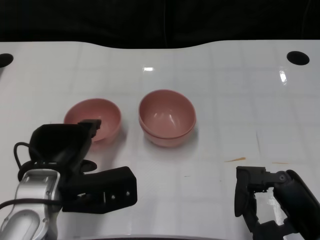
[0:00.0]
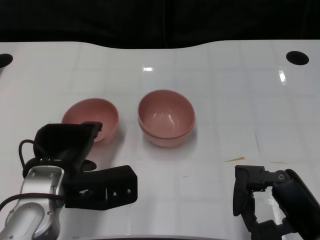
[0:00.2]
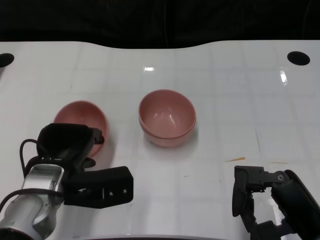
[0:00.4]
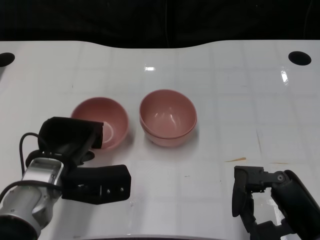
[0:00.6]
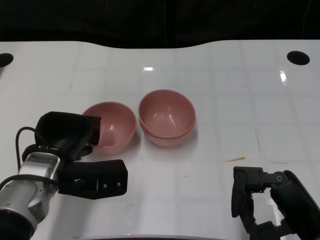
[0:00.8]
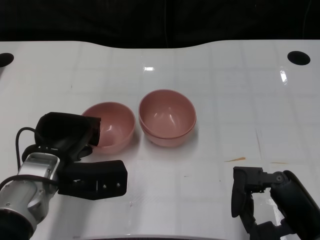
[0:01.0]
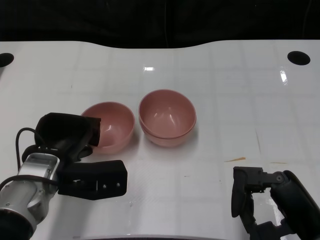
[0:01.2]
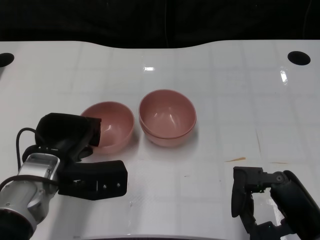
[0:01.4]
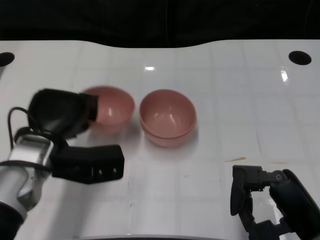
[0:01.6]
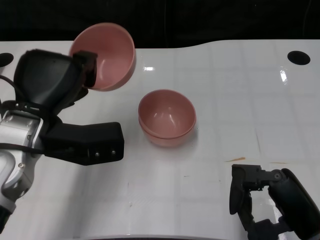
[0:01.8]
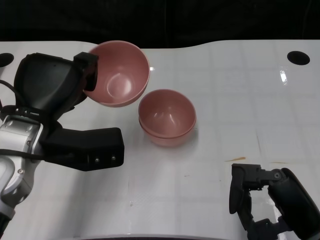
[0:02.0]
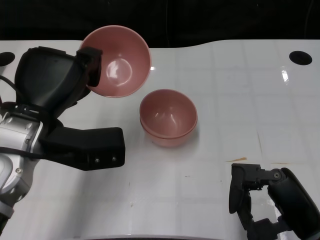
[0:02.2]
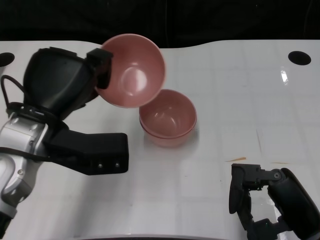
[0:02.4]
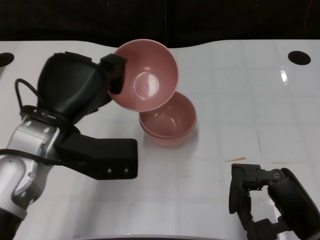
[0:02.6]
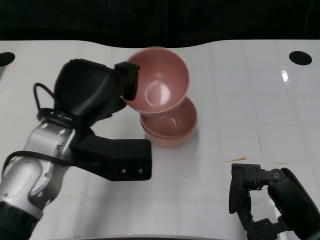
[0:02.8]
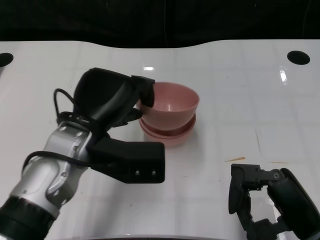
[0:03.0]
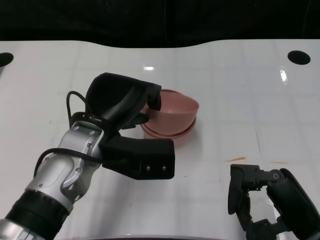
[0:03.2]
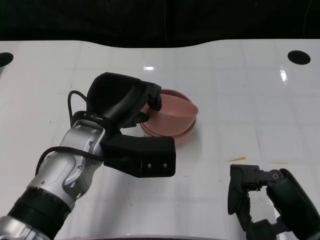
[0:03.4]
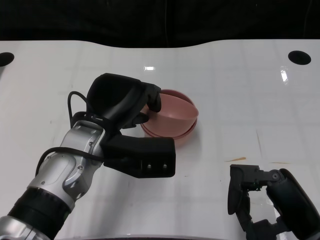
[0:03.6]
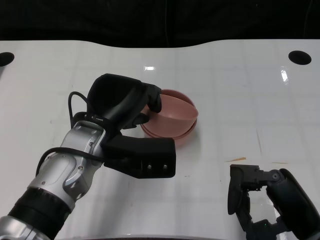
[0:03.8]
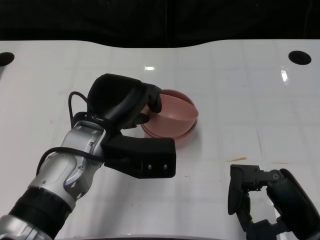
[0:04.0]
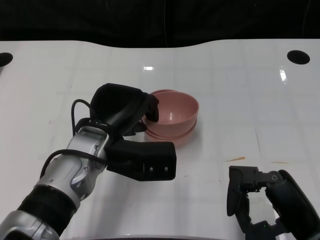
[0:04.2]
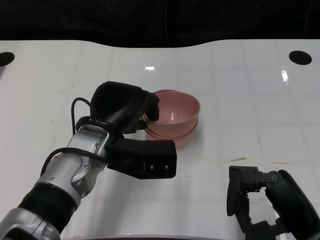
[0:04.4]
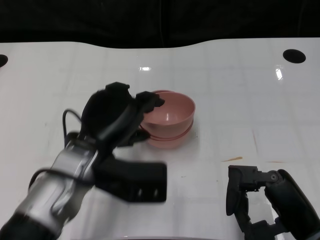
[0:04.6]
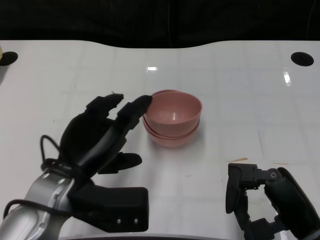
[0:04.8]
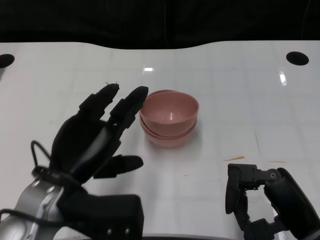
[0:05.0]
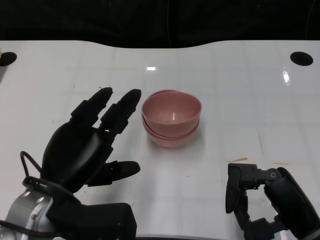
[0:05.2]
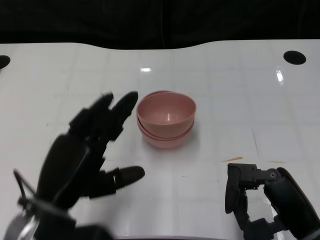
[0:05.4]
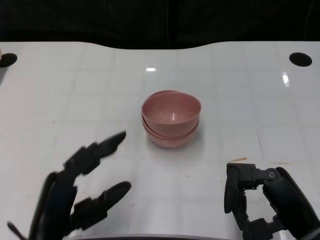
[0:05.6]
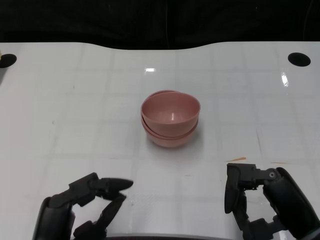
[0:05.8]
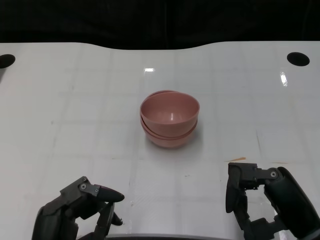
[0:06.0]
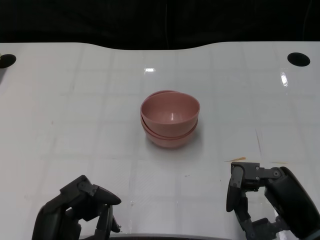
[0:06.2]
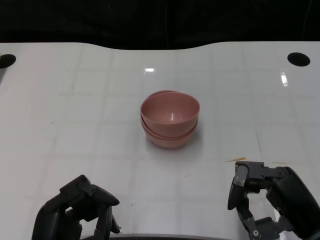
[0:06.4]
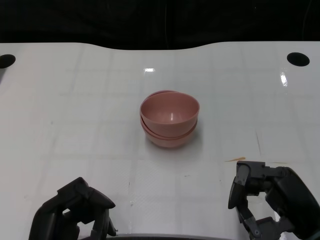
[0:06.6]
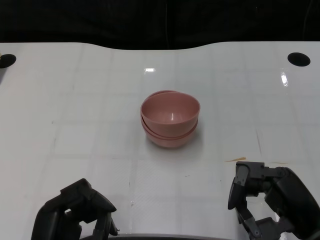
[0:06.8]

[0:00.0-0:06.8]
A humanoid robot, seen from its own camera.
Task of the whole recording: Pick up the bowl on one side of the table and place it on top of the middle bowl, then pick up the bowl on the other side of the table and place it on top of the middle bowls.
Step, 0:01.8 to 0:04.8: Place the bowl on the left onto the bowl in the middle with left gripper.
0:00.0 to 0:01.4: The hands make only small movements.
0:01.4 to 0:02.8: The left hand goes some 10 cm upward.
0:04.0 to 0:05.4: The left hand goes roughly 10 cm backward and to the left.
0:05.4 to 0:06.8: The left hand moves backward and downward, some 10 cm.

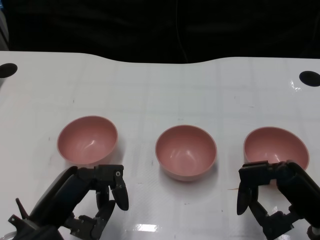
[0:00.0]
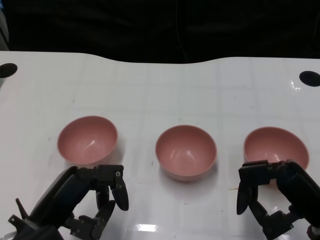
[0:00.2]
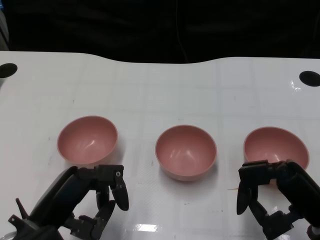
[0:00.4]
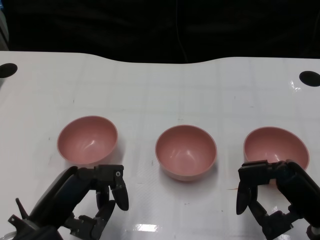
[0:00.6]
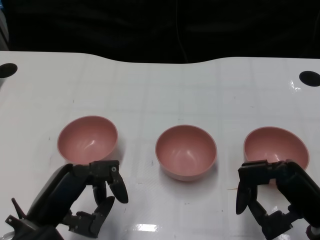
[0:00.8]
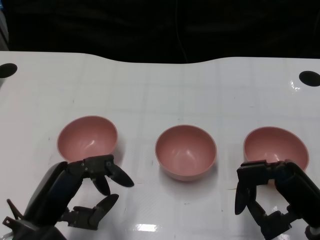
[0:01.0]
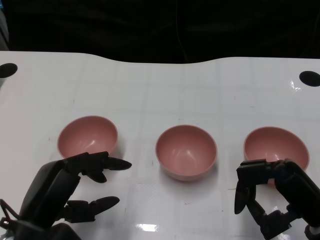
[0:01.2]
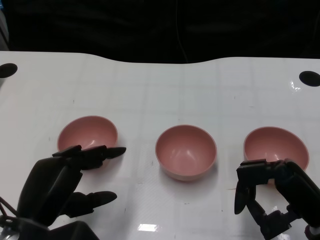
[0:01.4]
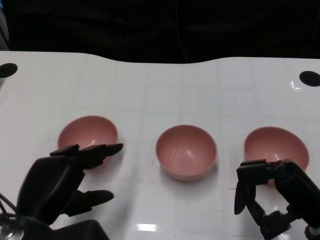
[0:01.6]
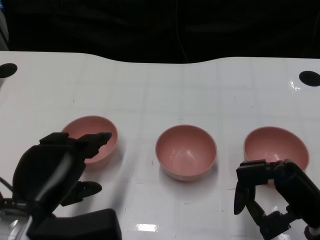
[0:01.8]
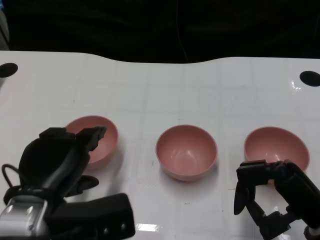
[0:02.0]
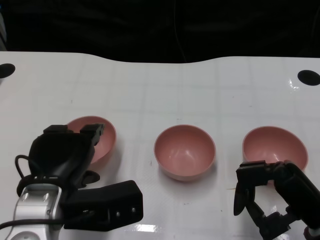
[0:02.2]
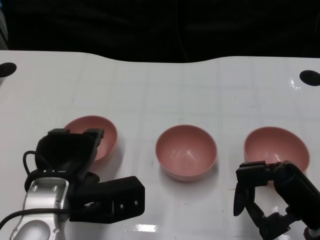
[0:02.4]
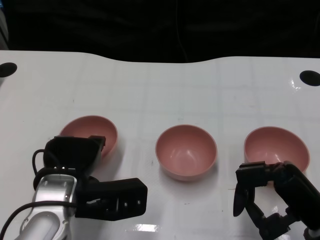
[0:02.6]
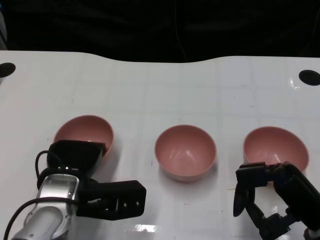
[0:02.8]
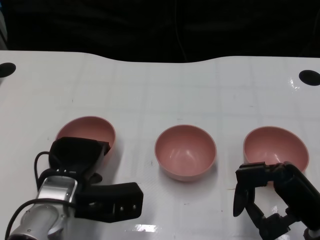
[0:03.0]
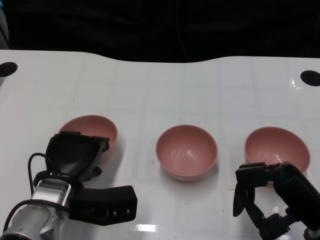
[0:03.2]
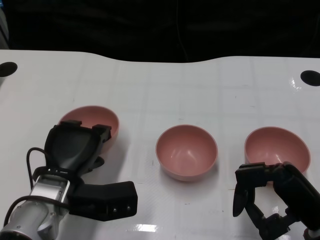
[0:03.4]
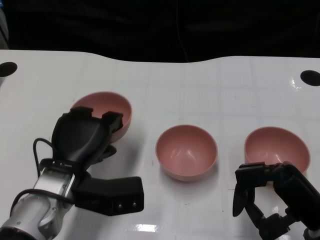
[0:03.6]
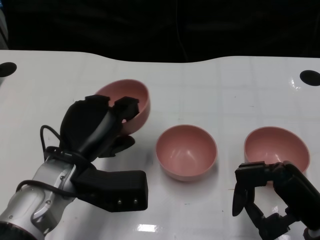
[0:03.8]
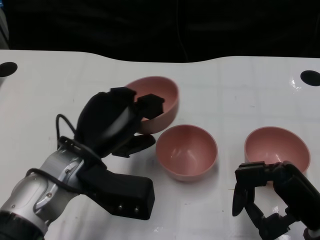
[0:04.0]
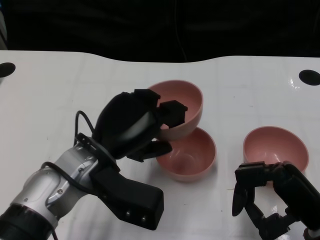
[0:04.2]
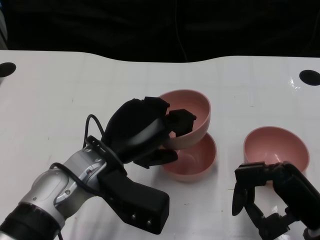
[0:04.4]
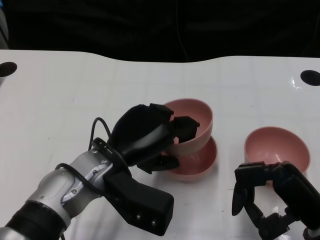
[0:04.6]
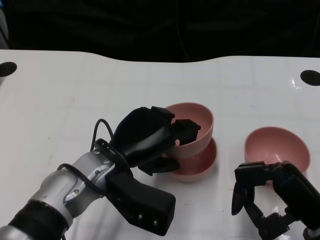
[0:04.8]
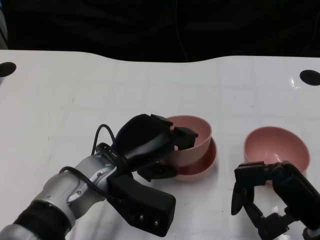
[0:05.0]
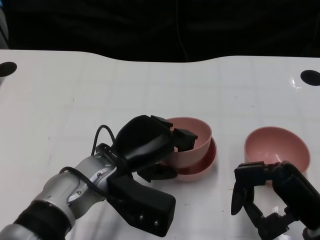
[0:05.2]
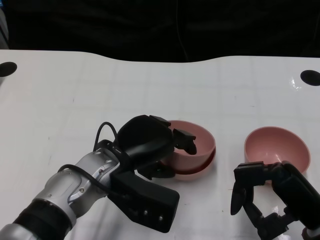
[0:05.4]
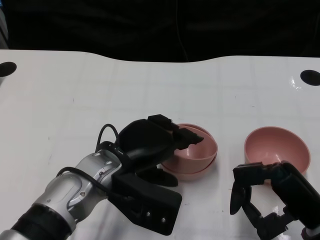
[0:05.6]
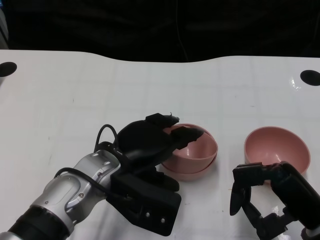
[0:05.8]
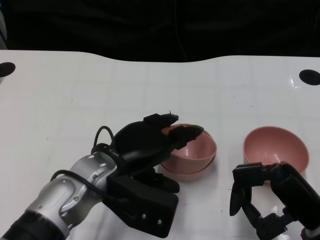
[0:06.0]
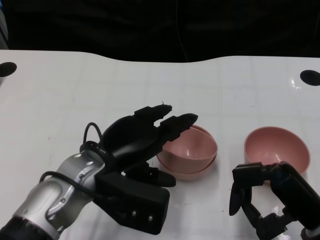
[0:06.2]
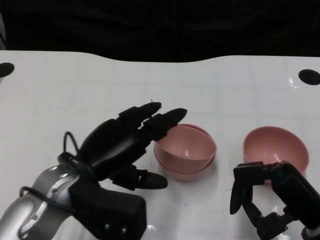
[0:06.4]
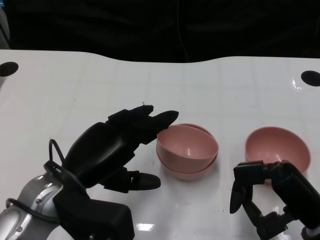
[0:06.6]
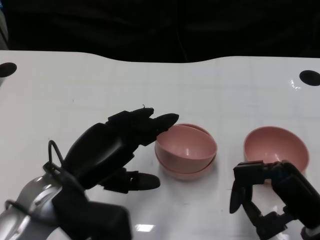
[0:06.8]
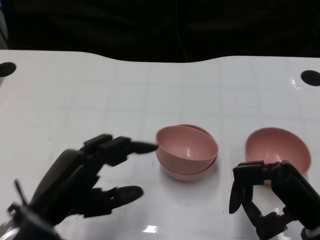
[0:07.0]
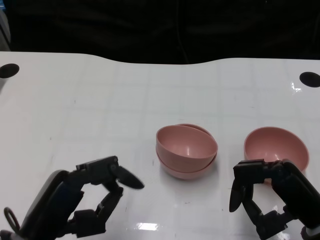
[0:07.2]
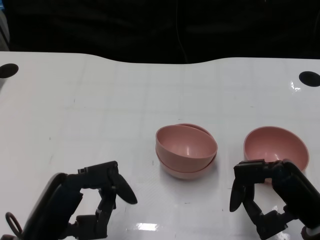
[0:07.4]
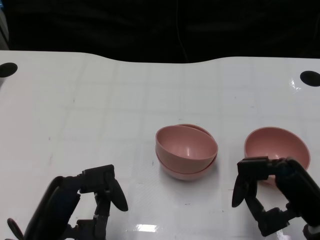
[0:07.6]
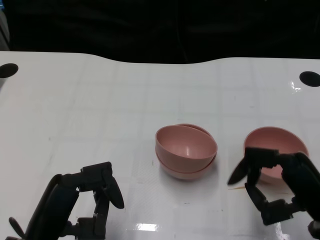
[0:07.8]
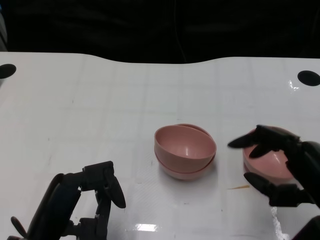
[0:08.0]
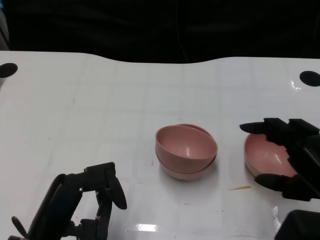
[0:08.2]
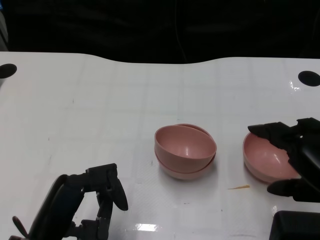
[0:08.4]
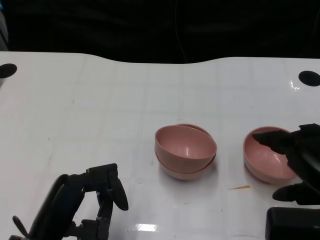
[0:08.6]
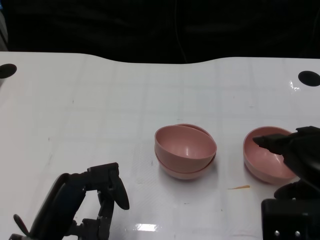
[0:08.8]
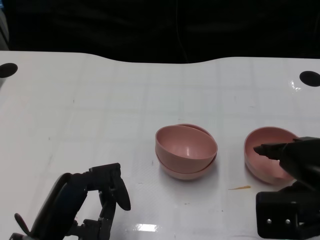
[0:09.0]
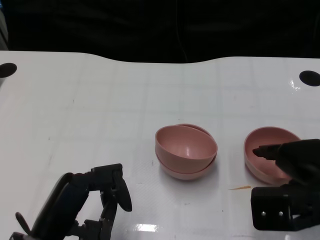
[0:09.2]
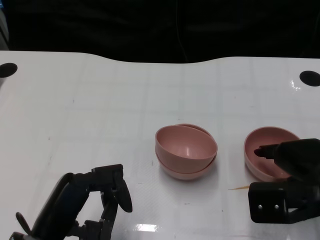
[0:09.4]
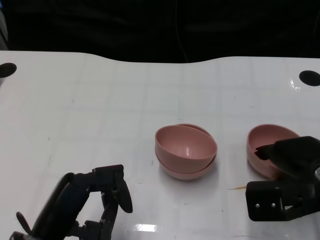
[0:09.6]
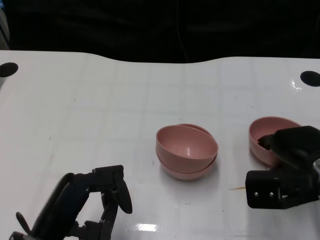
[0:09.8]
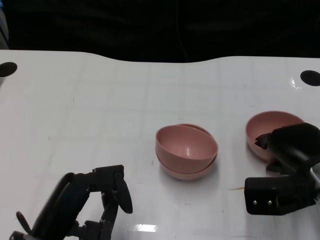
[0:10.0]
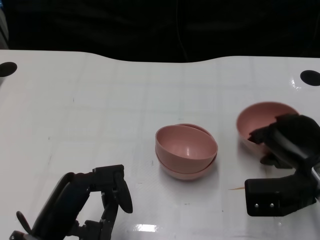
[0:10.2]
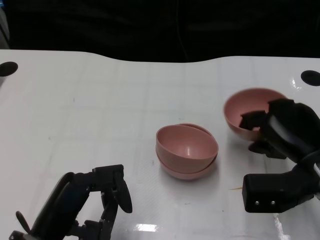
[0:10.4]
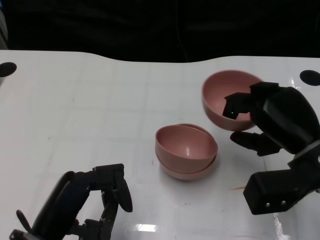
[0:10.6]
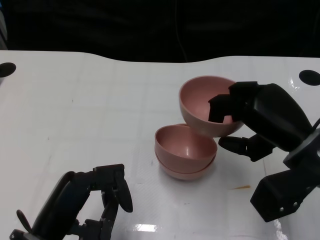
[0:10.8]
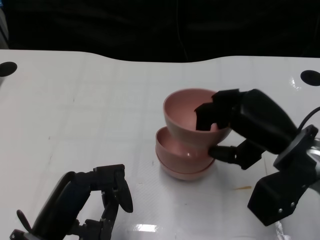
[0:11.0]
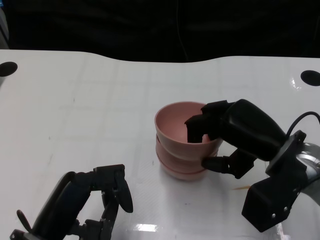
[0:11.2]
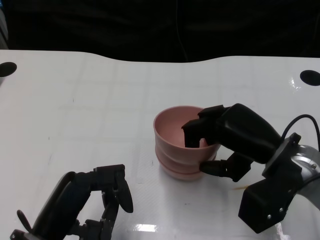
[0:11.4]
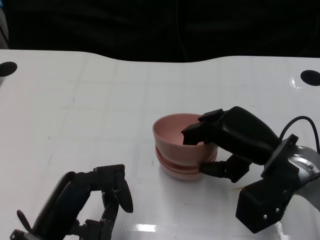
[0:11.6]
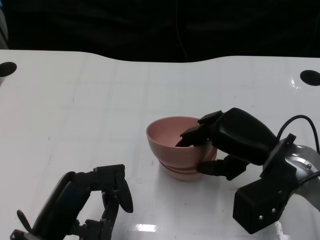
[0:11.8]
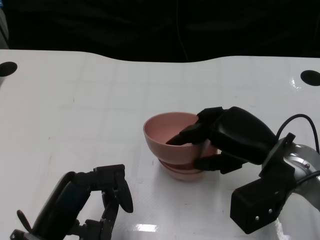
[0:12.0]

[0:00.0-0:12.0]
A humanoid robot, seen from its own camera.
Task of the whole recording: Pick up the bowl on one side of the table and place it on top of the middle bowl, then pick up the bowl on the other side of the table and place it on top of the middle bowls.
Step, 0:01.0 to 0:03.4: Grasp the bowl on the left with the left gripper.
Step, 0:03.6 to 0:06.0: Place the bowl on the left onto the bowl in the middle with left gripper.
Step, 0:06.2 to 0:10.2: Grasp the bowl on the right with the right gripper.
0:01.6 to 0:03.0: The left hand heads forward, covering roughly 10 cm.
0:03.0 to 0:04.4: The left hand travels upward by roughly 5 cm.
0:06.0 to 0:07.6: The left hand travels backward and to the left by some 15 cm.
0:07.6 to 0:09.0: The right hand goes roughly 5 cm upward.
0:09.0 to 0:10.4: The right hand moves forward, some 5 cm.
0:10.4 to 0:12.0: The right hand shifts by about 5 cm.

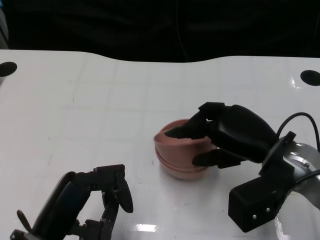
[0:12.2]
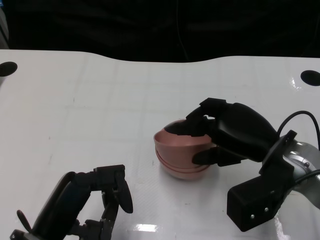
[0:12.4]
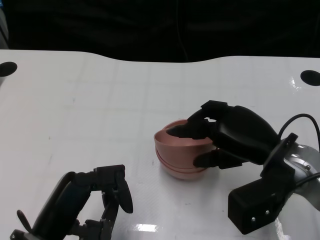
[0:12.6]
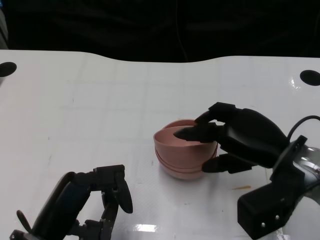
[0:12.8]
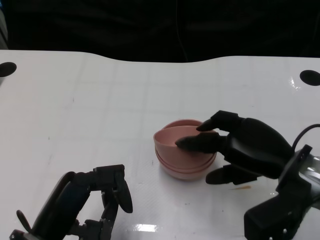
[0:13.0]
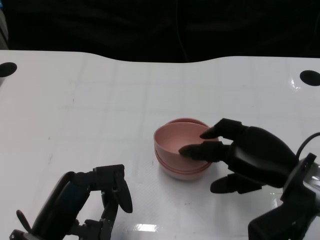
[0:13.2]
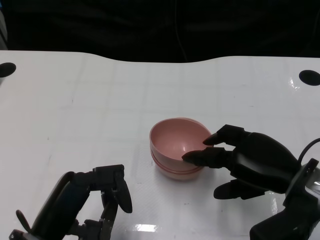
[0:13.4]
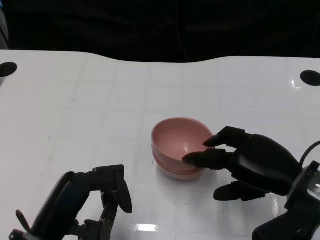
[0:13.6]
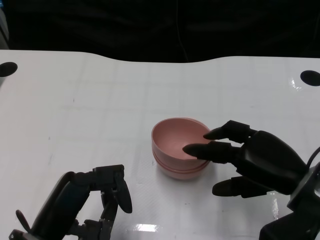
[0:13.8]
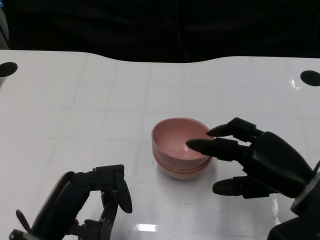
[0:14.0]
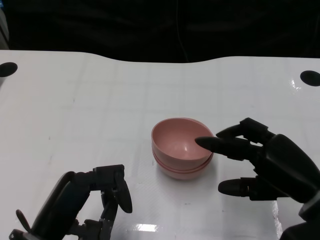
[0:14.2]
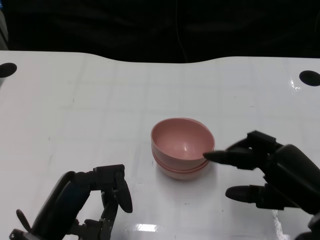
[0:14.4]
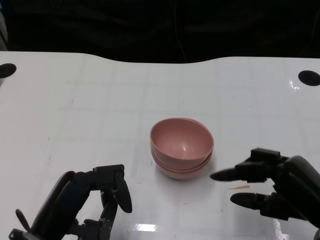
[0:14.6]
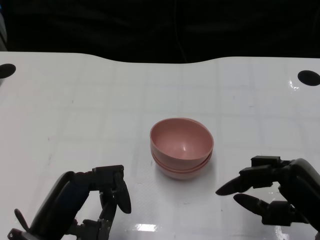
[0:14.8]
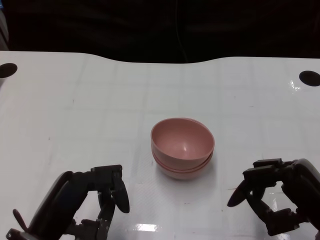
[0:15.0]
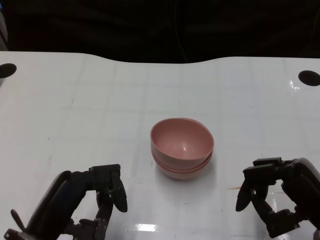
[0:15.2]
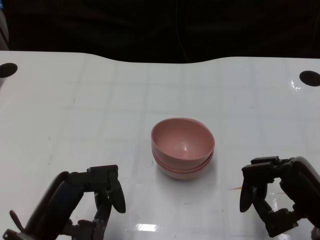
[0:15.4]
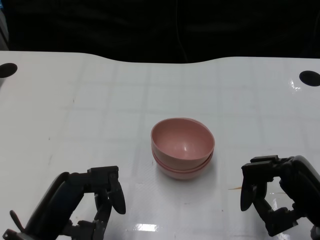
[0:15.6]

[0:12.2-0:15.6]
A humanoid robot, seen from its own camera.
Task of the whole recording: Pick up the bowl on one side of the table and place it on top of the middle bowl, then pick up the bowl on the other side of the table and place it on top of the middle bowls.
0:12.2 to 0:13.8: The right hand changes place by about 5 cm.
0:13.8 to 0:15.6: The right hand shifts by about 5 cm.
